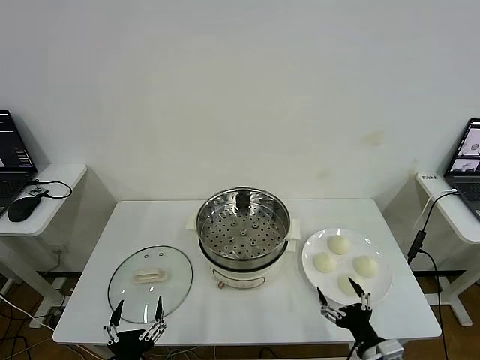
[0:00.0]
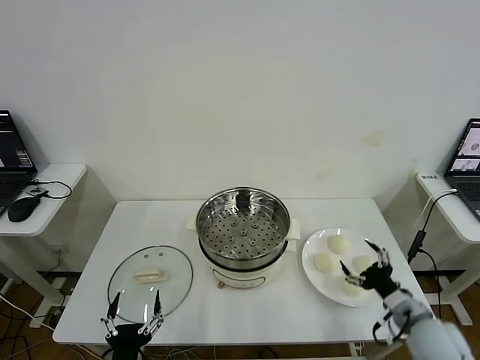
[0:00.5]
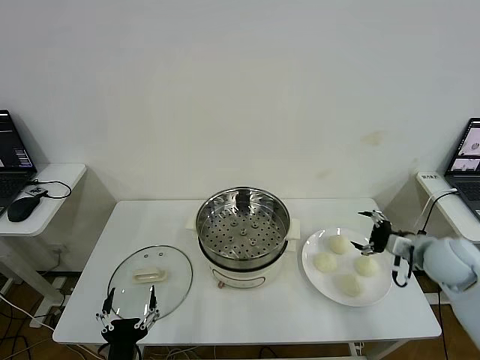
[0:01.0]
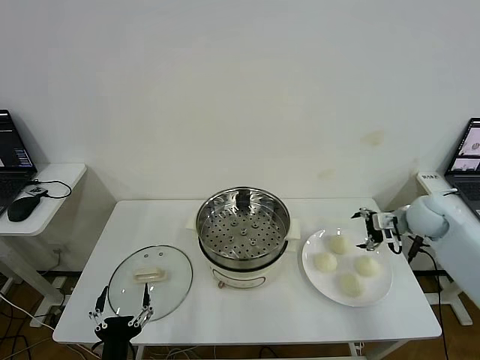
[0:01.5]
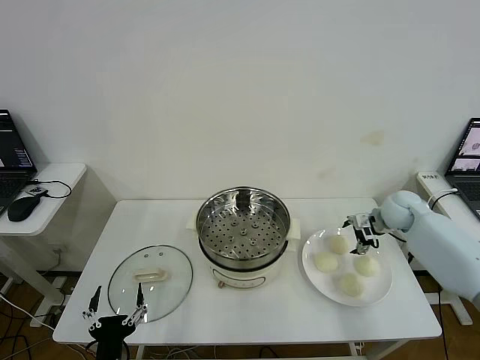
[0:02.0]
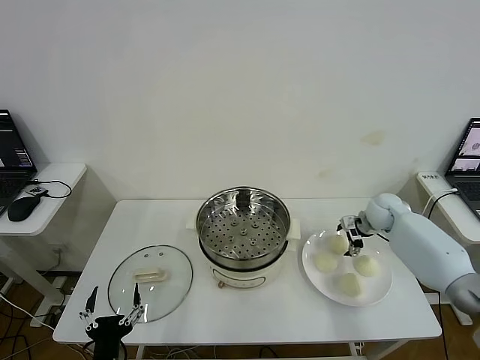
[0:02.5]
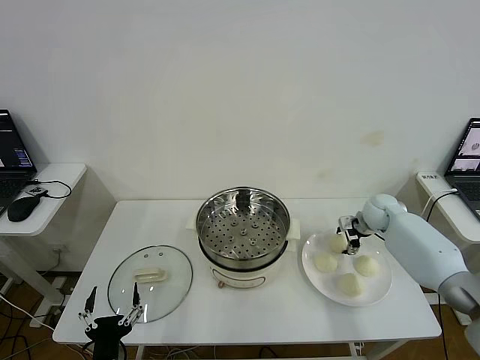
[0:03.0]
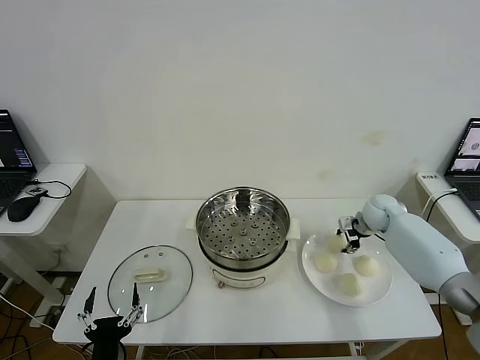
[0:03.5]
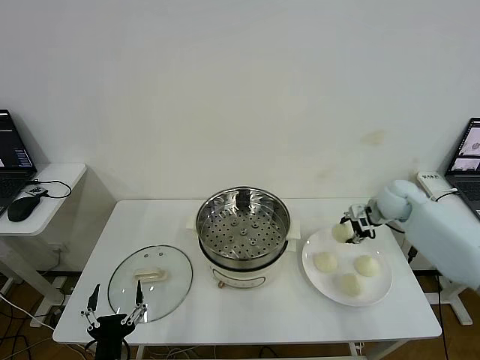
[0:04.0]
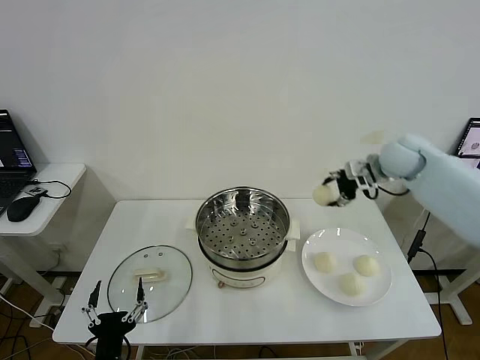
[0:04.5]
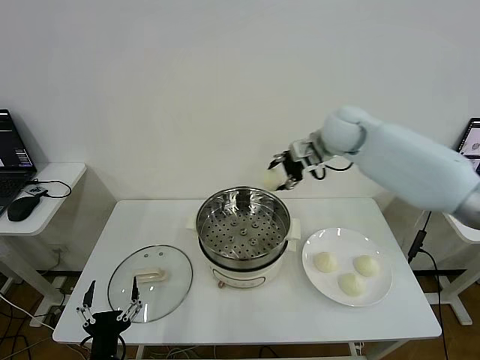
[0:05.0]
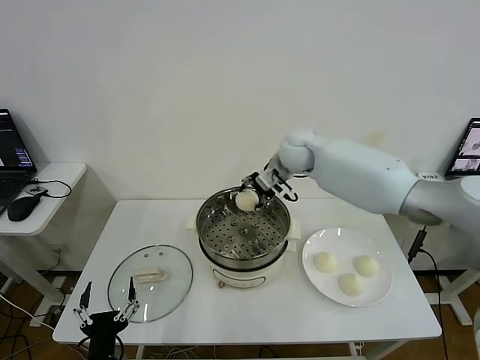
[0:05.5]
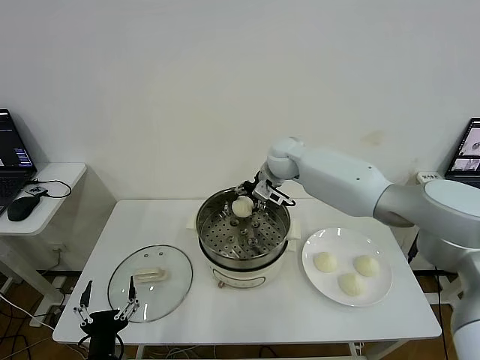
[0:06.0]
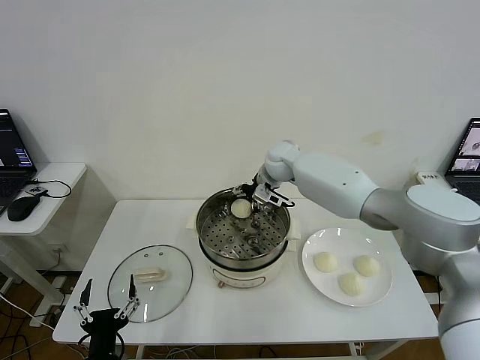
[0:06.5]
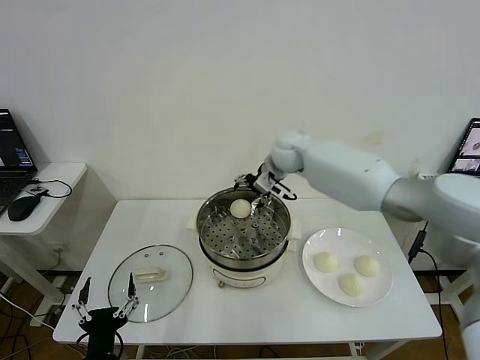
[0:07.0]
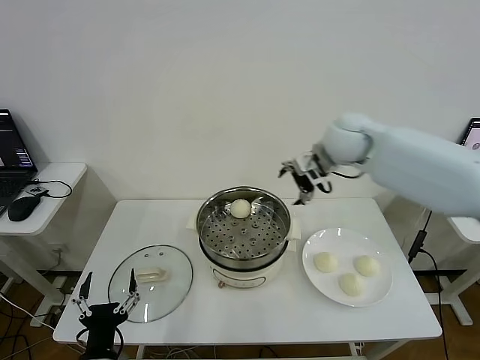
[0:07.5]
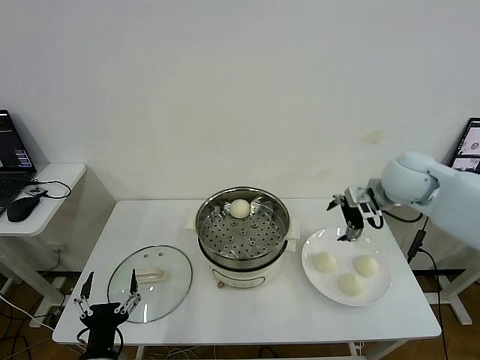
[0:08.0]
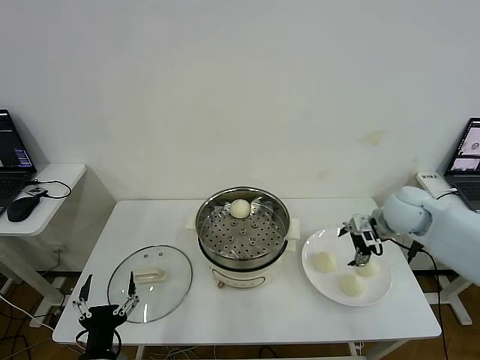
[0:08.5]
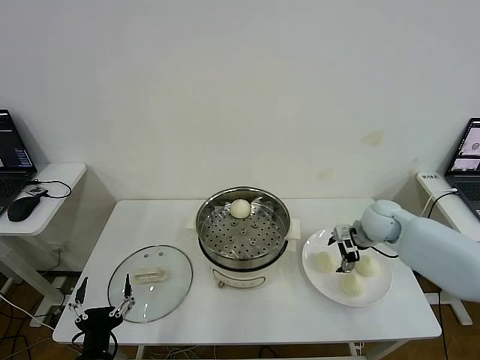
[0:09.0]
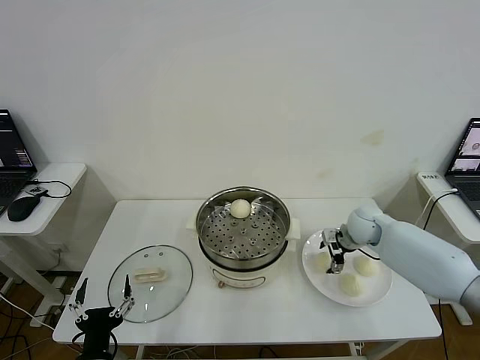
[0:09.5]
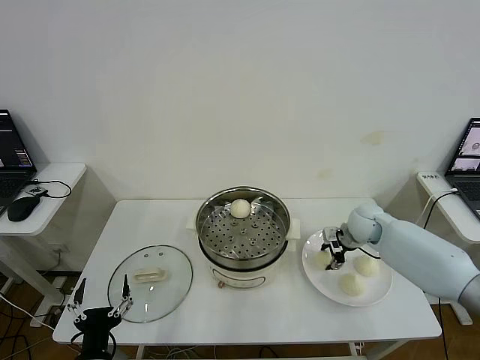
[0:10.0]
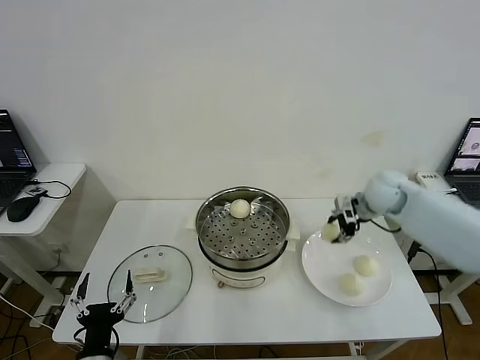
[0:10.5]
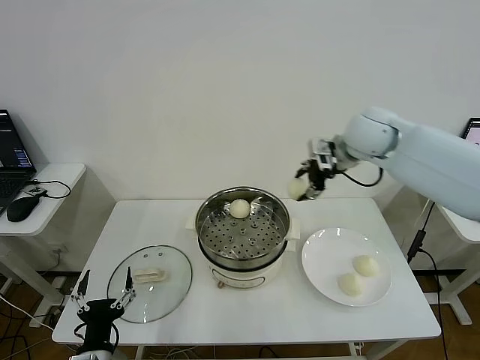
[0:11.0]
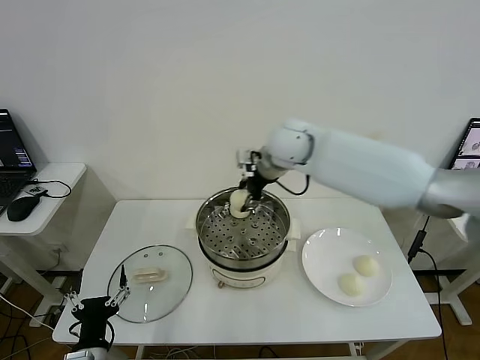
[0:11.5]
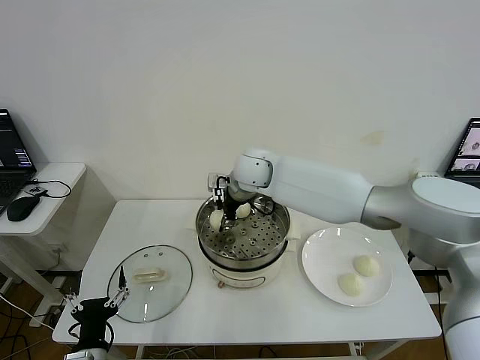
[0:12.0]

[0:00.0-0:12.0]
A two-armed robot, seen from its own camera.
Step, 0:00.0 to 0:03.0: Grasp the baozi in the plate with right gripper.
Step, 0:03.5 to 0:06.5: Place the baozi on the steamer with right gripper.
Step, 0:07.0 to 0:09.5: Grasp the baozi in the plate with right gripper.
0:02.0 to 0:04.0: The right gripper closes its fingers.
0:04.0 to 0:06.0: The right gripper moves to the left, approximately 30 cm.
0:06.0 to 0:08.0: The right gripper is displaced to the right and backward by some 25 cm, and opens its fingers.
0:08.0 to 0:10.0: The right gripper travels downward by some 20 cm, and closes up.
0:10.0 to 0:12.0: The right gripper goes roughly 35 cm to the left and upward.

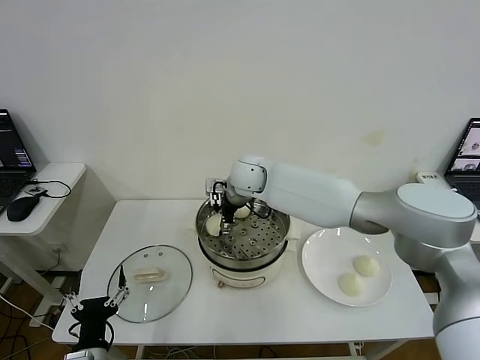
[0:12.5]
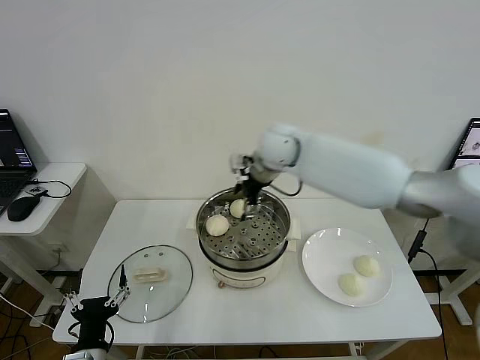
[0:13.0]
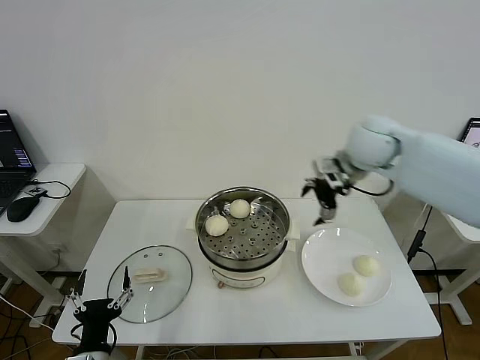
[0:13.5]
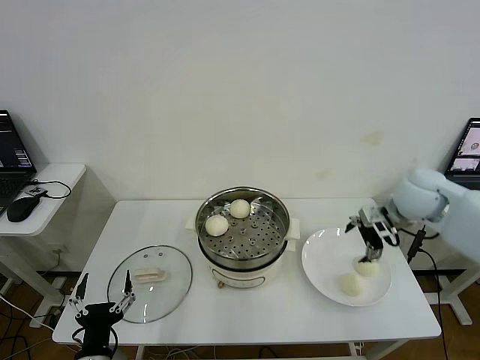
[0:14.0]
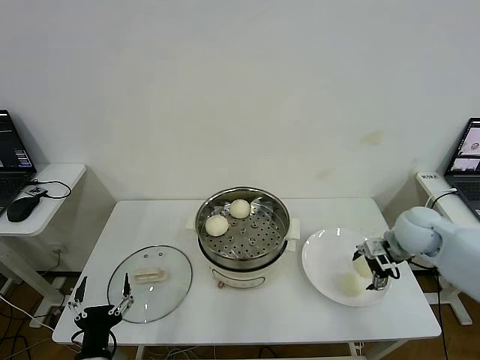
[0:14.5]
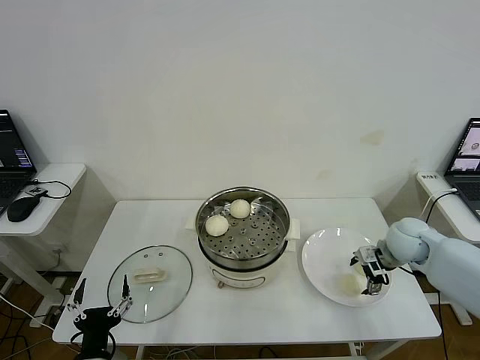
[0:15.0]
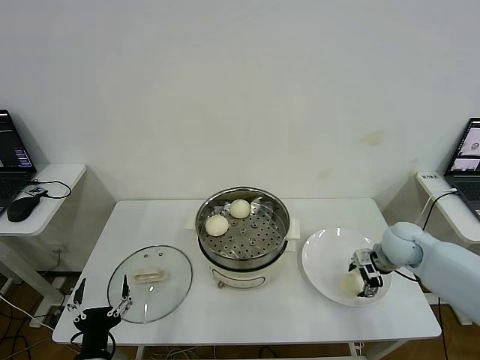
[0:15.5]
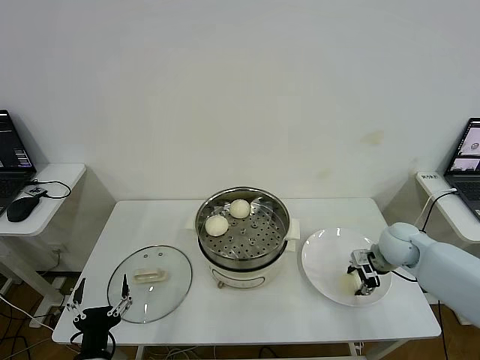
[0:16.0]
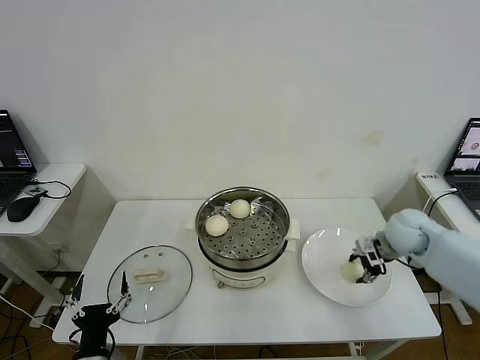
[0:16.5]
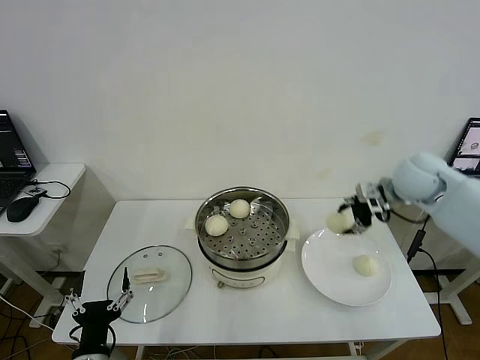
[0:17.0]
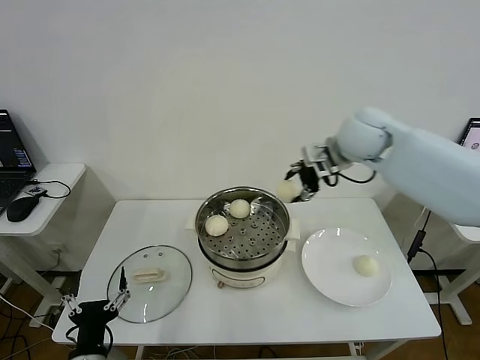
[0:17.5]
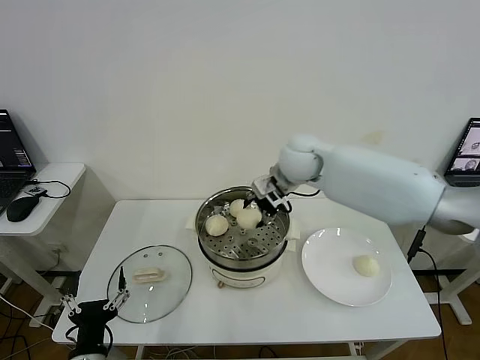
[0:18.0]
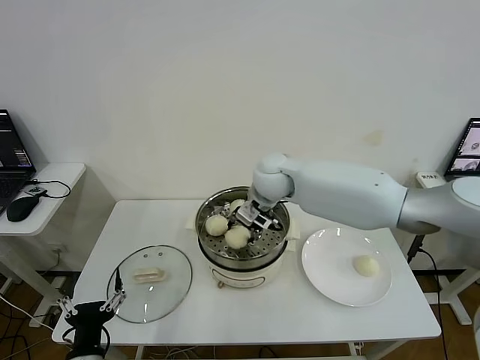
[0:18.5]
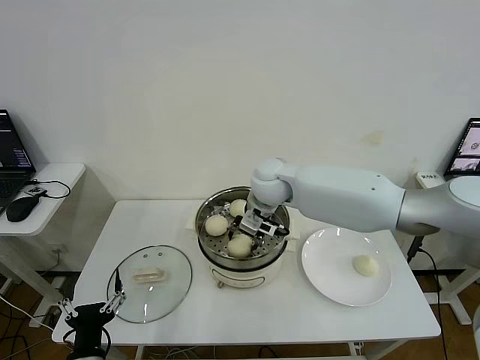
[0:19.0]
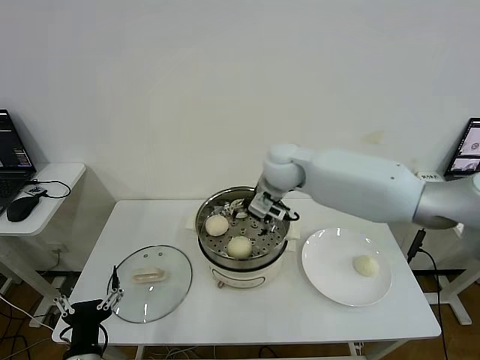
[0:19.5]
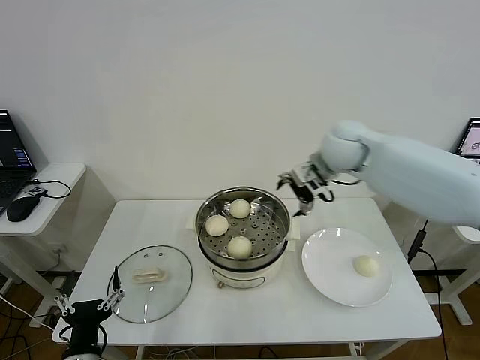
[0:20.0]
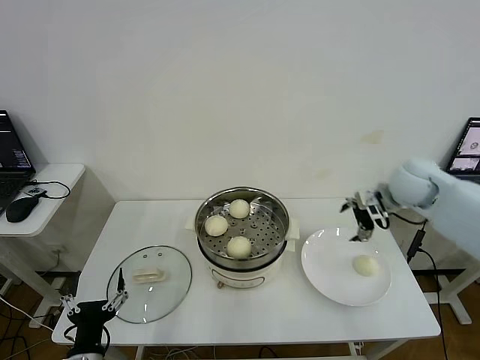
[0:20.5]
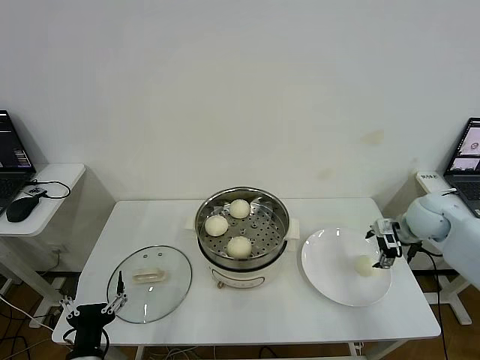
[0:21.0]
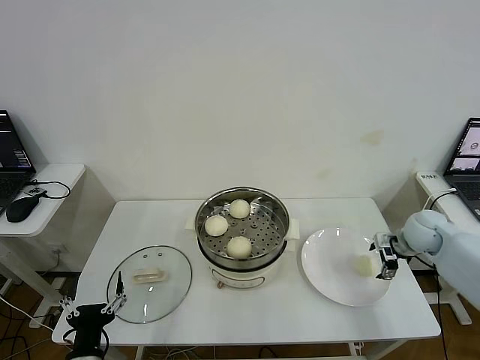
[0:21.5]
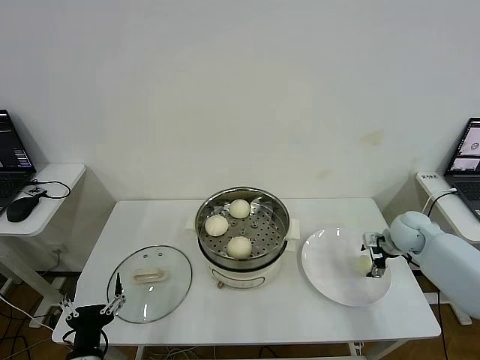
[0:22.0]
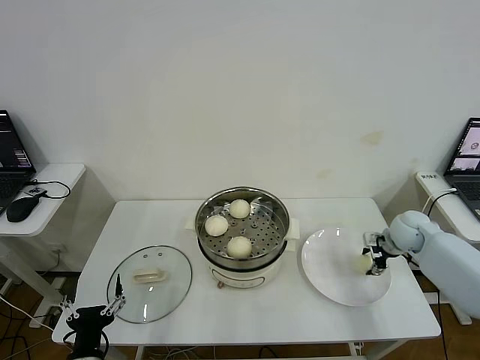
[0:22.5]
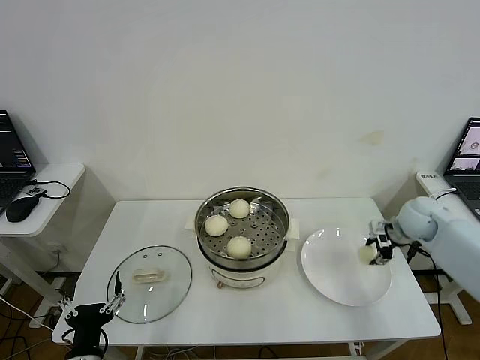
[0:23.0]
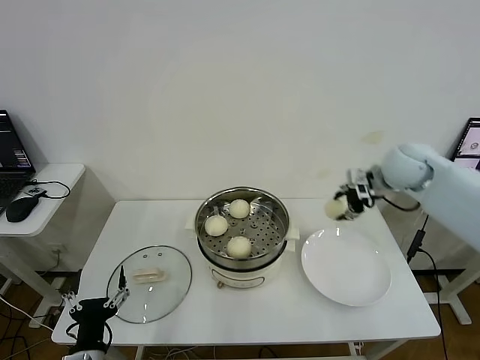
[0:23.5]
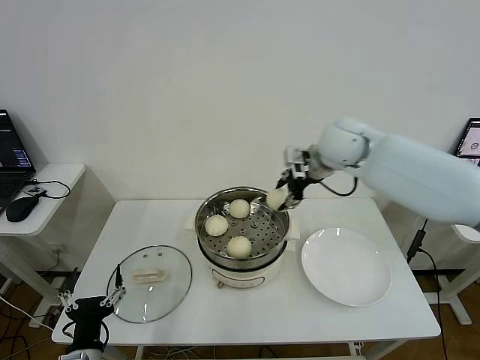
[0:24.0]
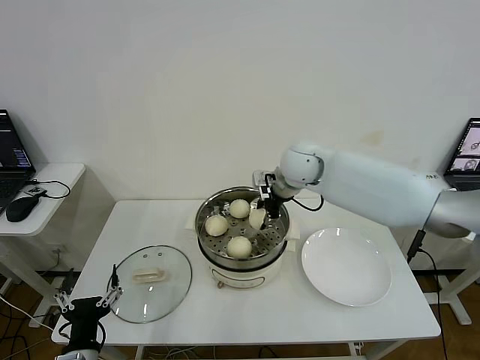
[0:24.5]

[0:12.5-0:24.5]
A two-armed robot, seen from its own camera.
Step, 0:13.0 to 0:16.0: Grasp the baozi in the plate with right gripper.
Step, 0:16.5 to 0:19.0: Place the baozi on the steamer with right gripper.
Step, 0:19.5 to 0:22.5: Grasp the baozi in the plate with right gripper.
0:12.5 to 0:14.5: The right gripper is displaced to the right by approximately 35 cm.
0:14.5 to 0:16.5: The right gripper closes its fingers.
0:16.5 to 0:18.5: The right gripper moves to the left, approximately 30 cm.
0:18.5 to 0:20.5: The right gripper heads to the right, covering roughly 30 cm, and opens its fingers.
0:20.5 to 0:22.5: The right gripper moves downward and to the right, approximately 15 cm, and closes.
0:22.5 to 0:24.5: The right gripper travels to the left and upward by approximately 35 cm.

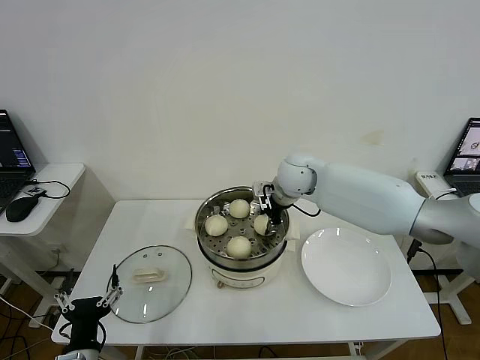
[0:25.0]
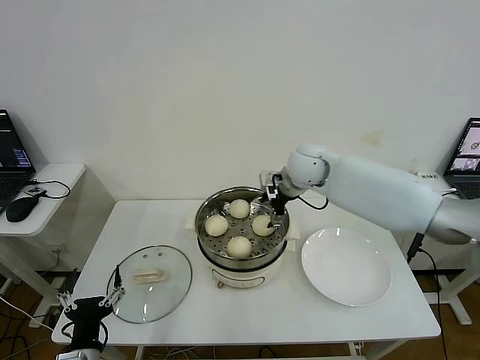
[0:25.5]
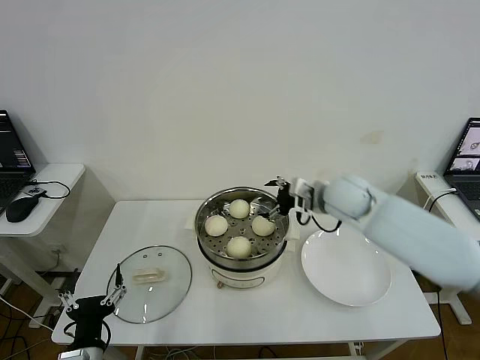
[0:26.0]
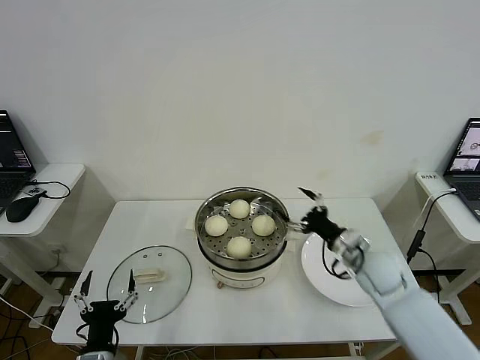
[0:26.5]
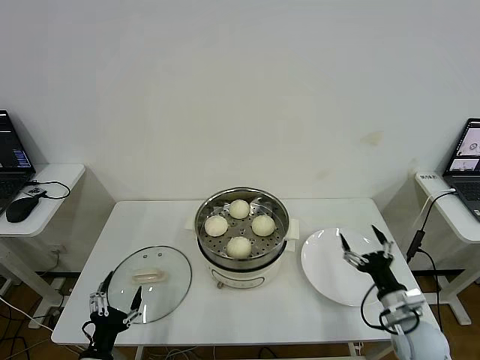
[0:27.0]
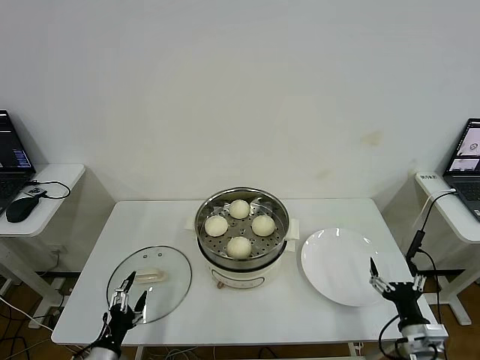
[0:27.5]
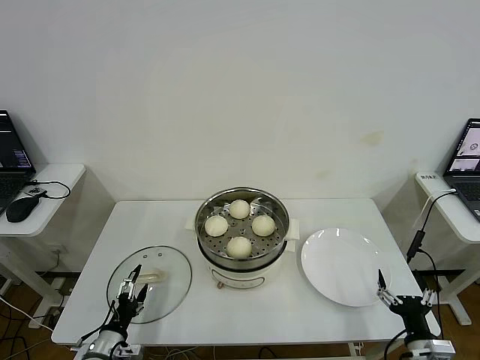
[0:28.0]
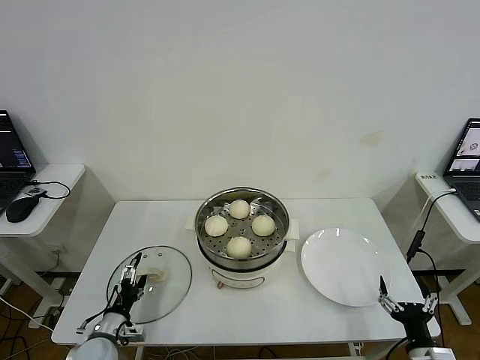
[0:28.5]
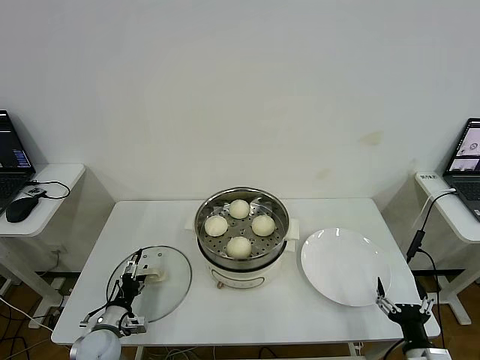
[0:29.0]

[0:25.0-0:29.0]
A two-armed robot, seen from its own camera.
0:25.0 to 0:27.0: The right gripper travels backward, to the right and downward by some 40 cm, and opens up.
0:27.0 to 0:29.0: The left gripper travels forward and downward by about 15 cm. The right gripper shifts roughly 10 cm backward.
